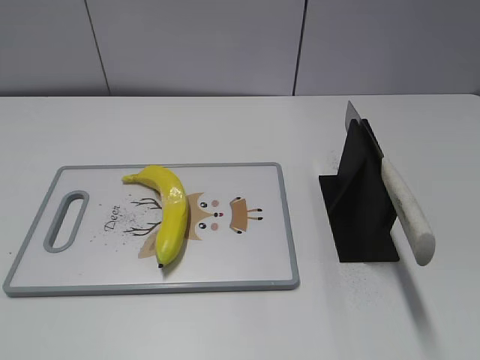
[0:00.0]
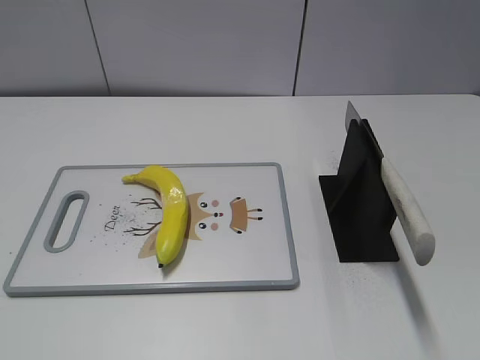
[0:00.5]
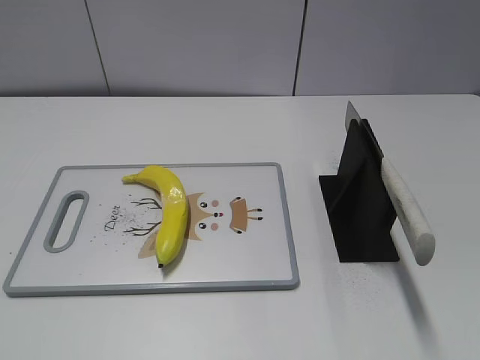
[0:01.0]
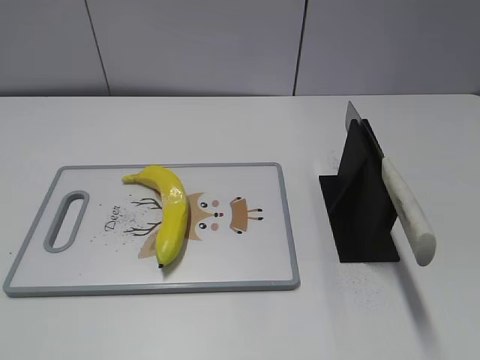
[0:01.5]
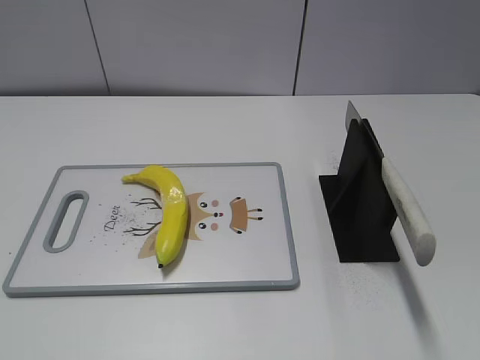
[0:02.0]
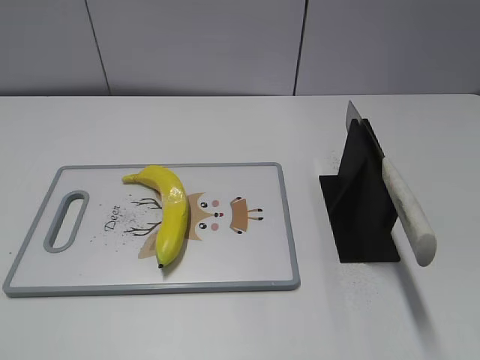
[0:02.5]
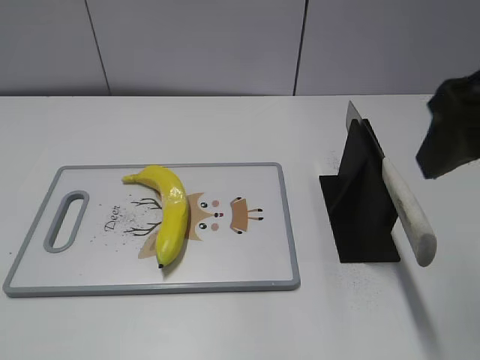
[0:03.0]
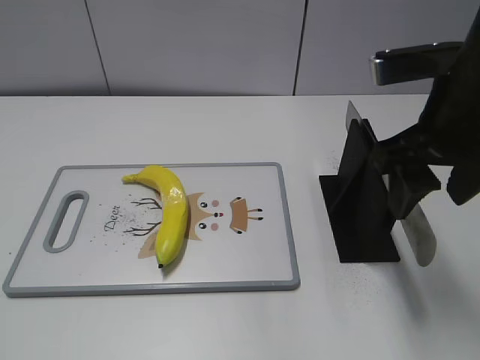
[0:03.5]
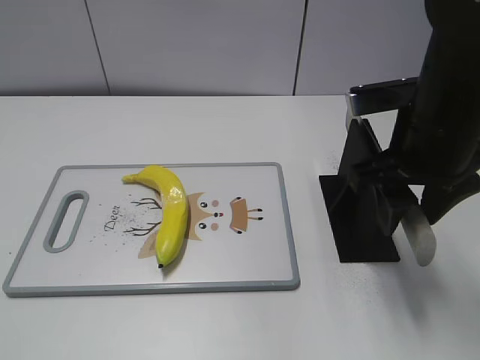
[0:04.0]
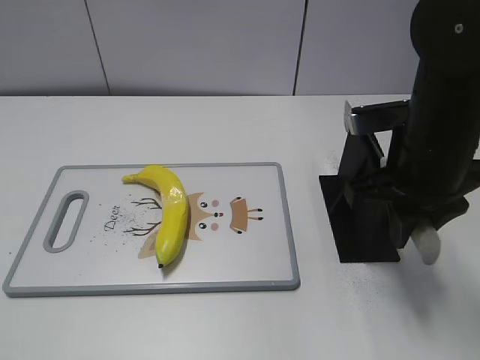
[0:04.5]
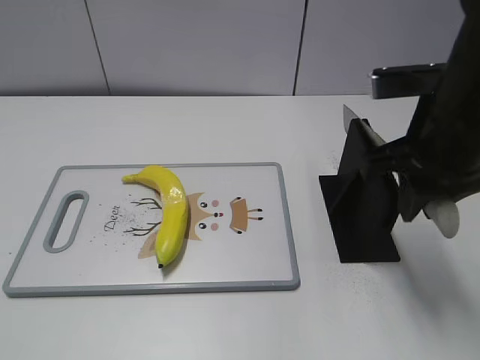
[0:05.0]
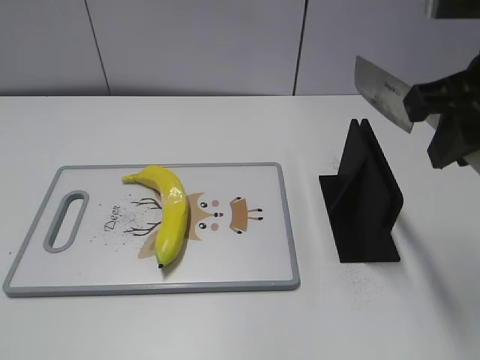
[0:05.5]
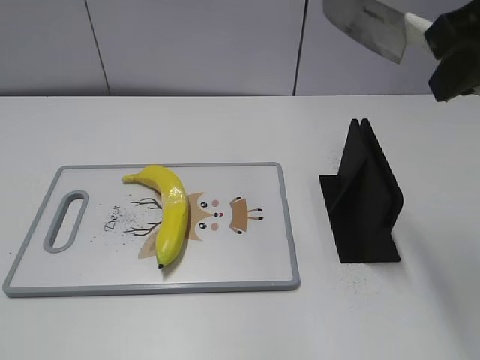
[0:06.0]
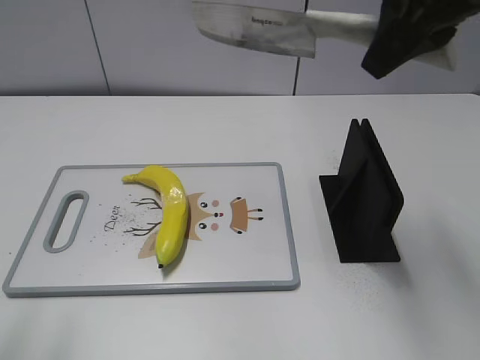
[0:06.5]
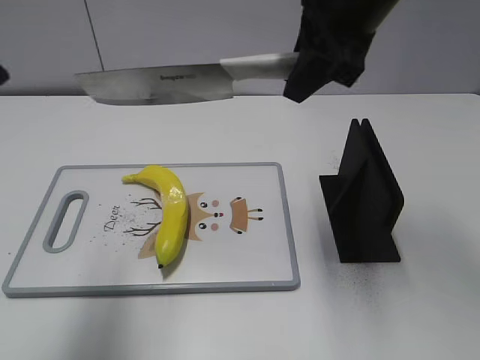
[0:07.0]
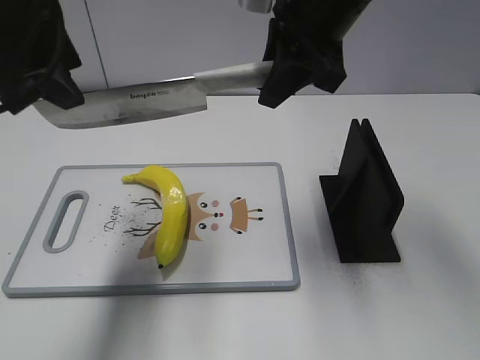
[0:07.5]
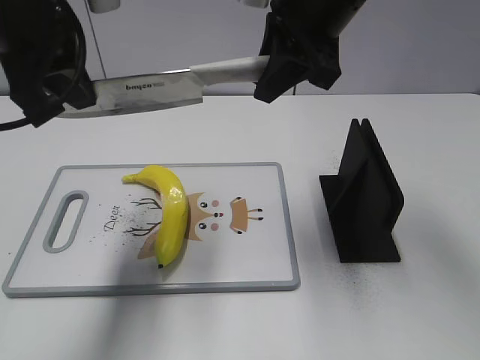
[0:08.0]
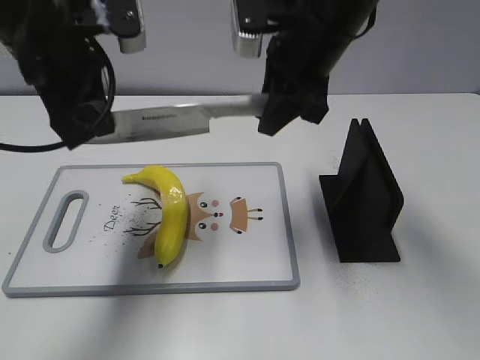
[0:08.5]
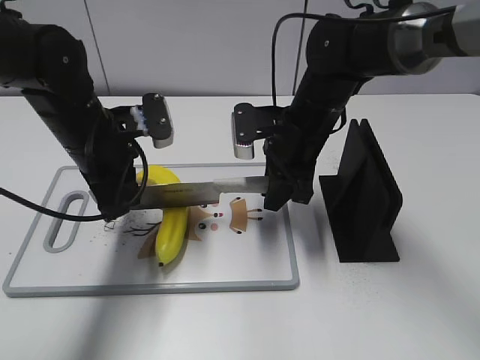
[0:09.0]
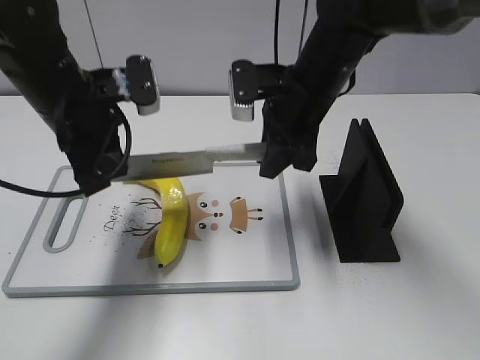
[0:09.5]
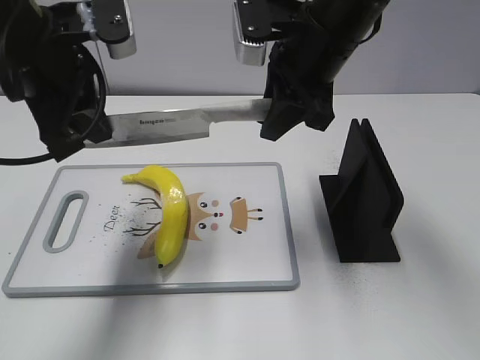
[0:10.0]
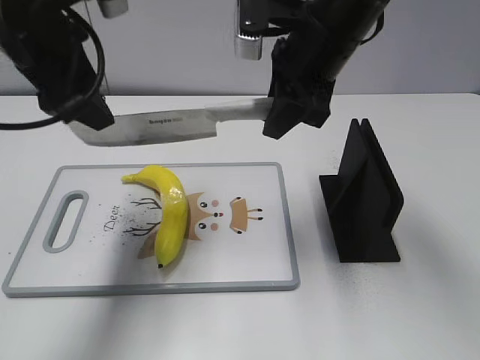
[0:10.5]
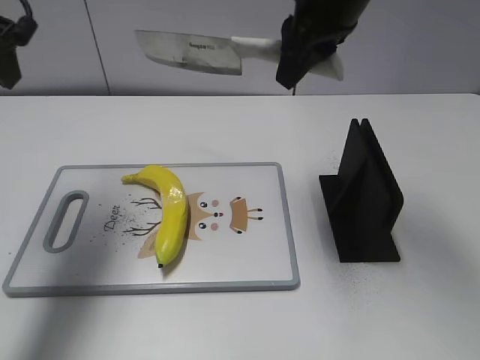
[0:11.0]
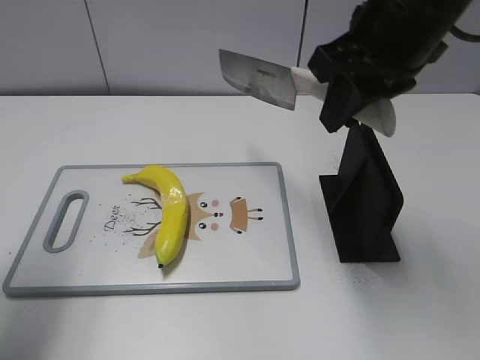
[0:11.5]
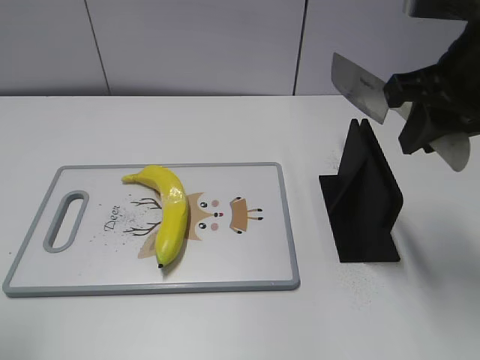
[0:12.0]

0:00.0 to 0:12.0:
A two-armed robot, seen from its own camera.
Task of the whole recording: cut plastic banana.
Step, 0:00.0 to 0:05.0: Grab the knife handle with your right hand.
Step, 0:06.0 to 0:10.0: Hold the blade with your left hand.
Step, 0:10.5 to 0:11.0: Cut the banana with your right hand.
0:02.0 to 0:04.0: The right gripper is displaced forward, to the left and downward by some 25 cm.
0:04.0 to 0:06.0: The right gripper moves upward, about 15 cm, and closes its fingers.
0:06.0 to 0:08.0: The left gripper moves forward and to the right, approximately 35 cm, and closes its fingers, while the right gripper moves forward, to the left and downward, approximately 15 cm.
0:08.0 to 0:10.0: The left gripper goes downward and returns, some 15 cm each way. The right gripper travels downward and back again, about 20 cm each way.
0:10.0 to 0:12.0: The left gripper is displaced backward and to the left by roughly 25 cm, and opens its fingers. Meanwhile the right gripper is displaced to the right and backward by about 15 cm.

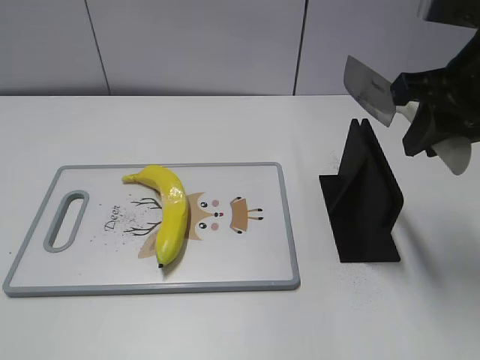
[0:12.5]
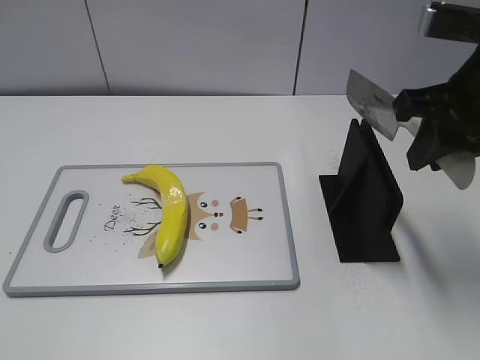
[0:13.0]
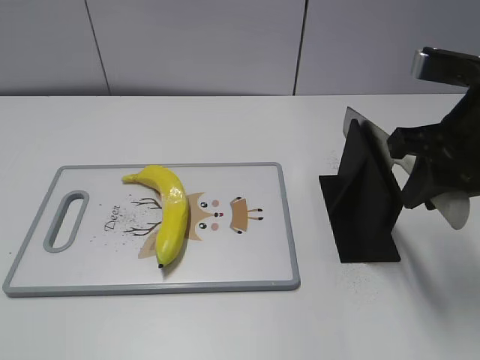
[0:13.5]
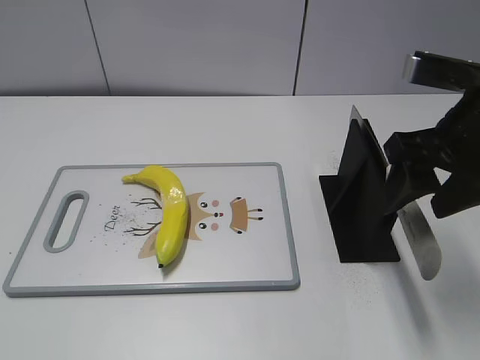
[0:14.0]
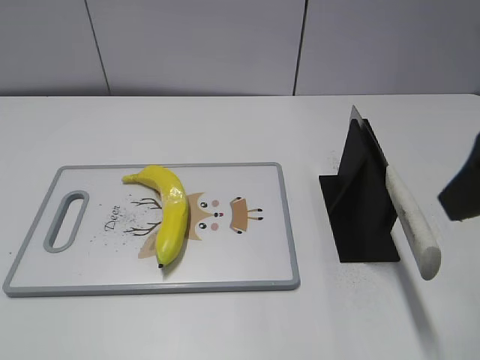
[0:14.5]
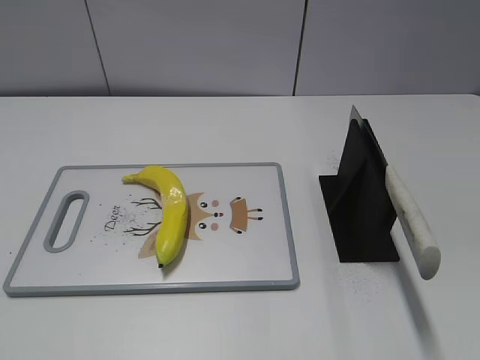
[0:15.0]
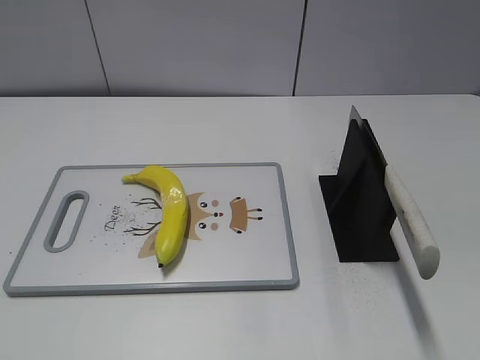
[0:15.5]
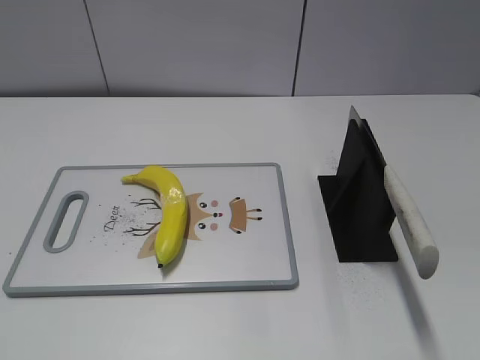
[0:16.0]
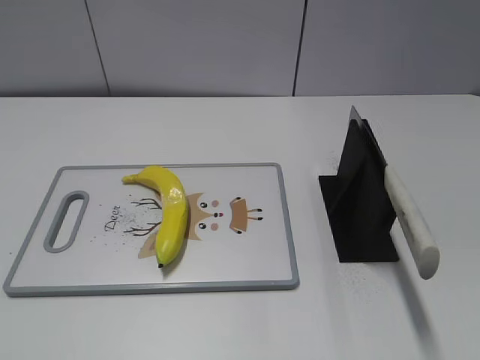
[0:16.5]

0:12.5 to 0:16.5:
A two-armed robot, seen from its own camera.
Task of the whole recording: cut plastic banana.
Step, 0:13.0 to 0:16.5: Place the knife on the storage rack with your right hand.
0:12.5 to 0:14.5: The right gripper travels backward by approximately 10 cm, and opens up.
0:14.5 to 0:16.5: The right gripper is displaced backward by roughly 20 cm.

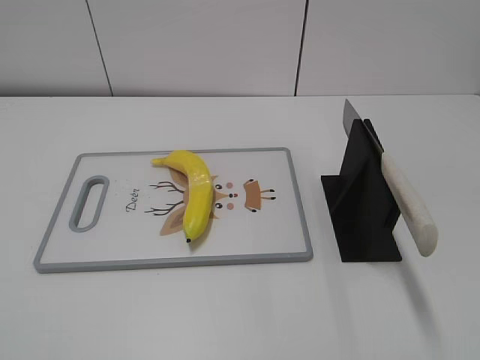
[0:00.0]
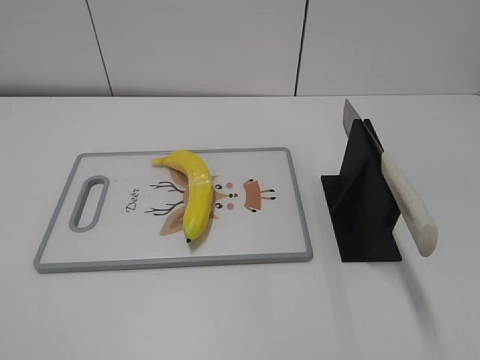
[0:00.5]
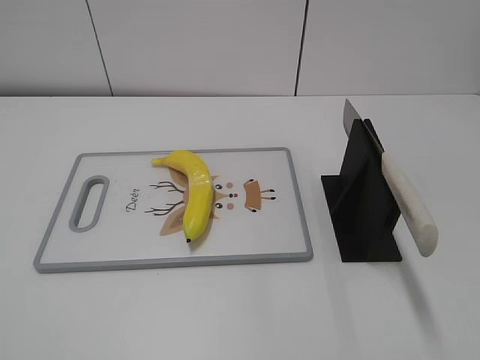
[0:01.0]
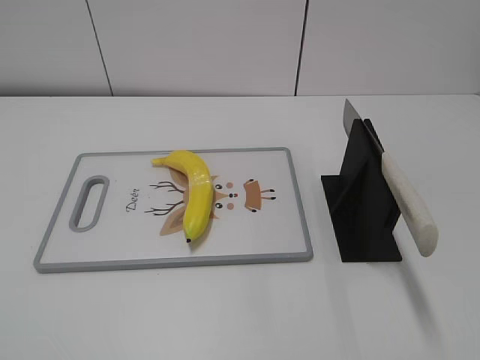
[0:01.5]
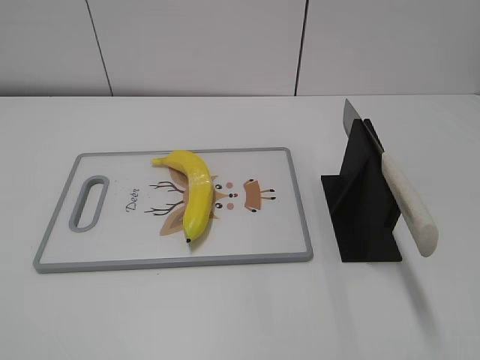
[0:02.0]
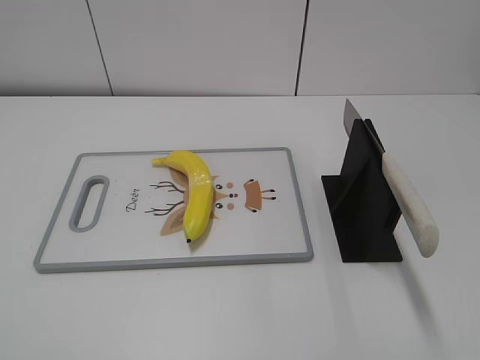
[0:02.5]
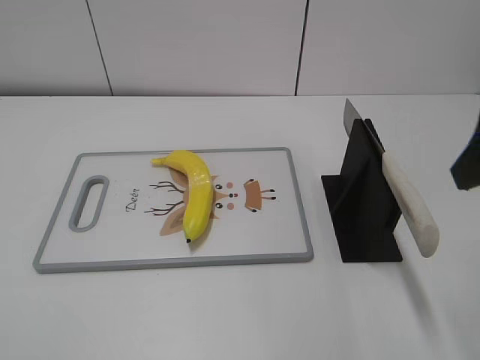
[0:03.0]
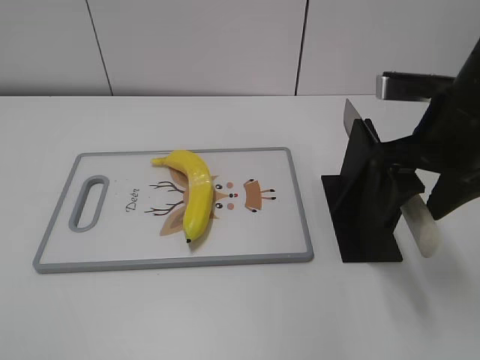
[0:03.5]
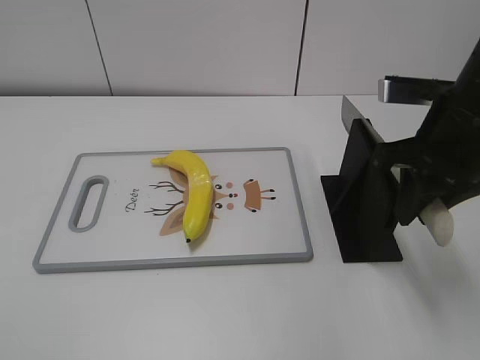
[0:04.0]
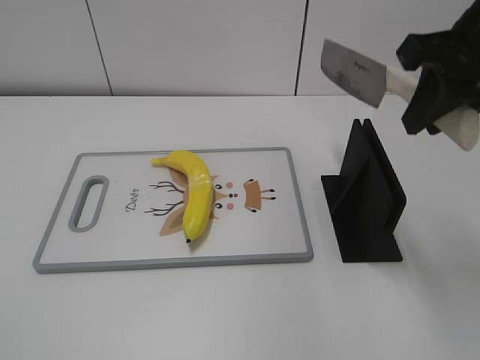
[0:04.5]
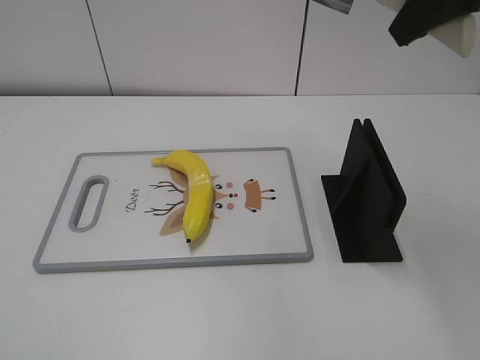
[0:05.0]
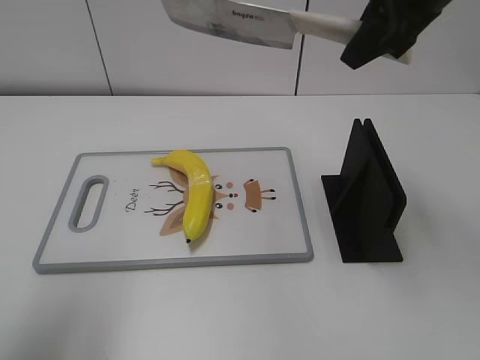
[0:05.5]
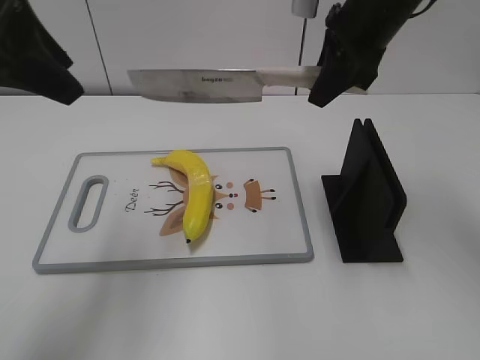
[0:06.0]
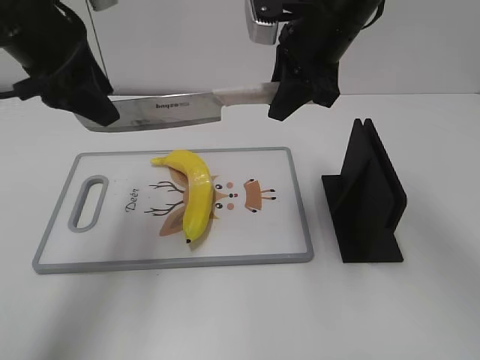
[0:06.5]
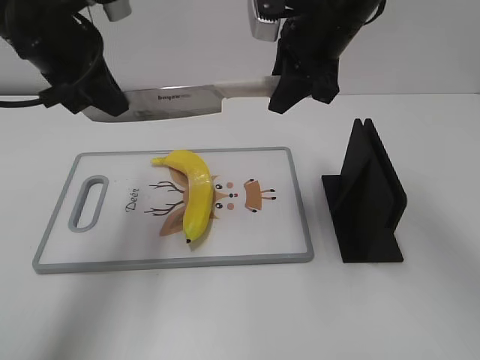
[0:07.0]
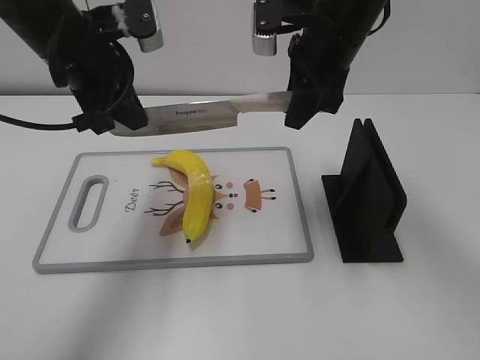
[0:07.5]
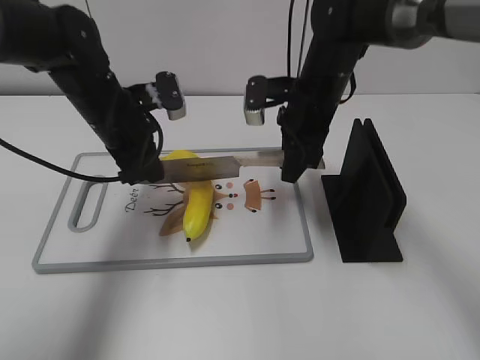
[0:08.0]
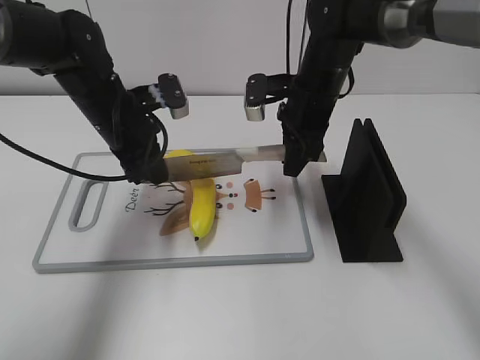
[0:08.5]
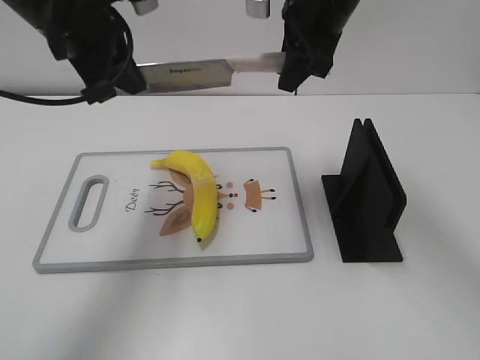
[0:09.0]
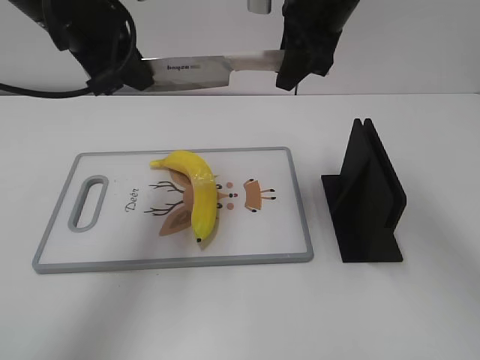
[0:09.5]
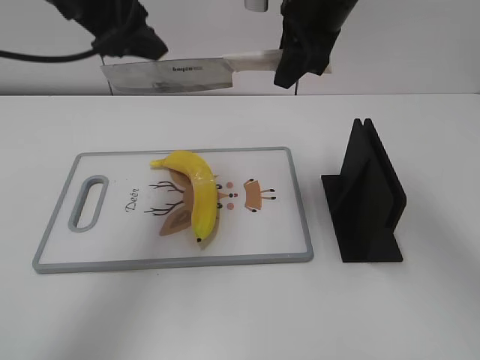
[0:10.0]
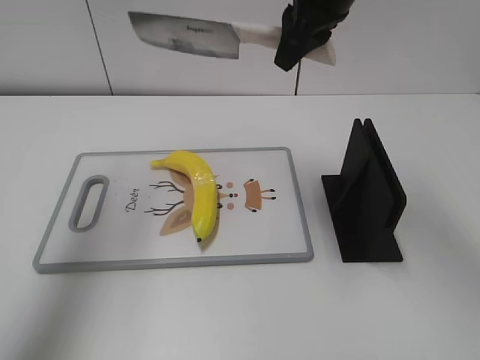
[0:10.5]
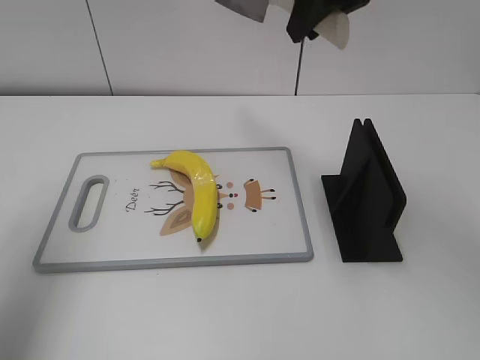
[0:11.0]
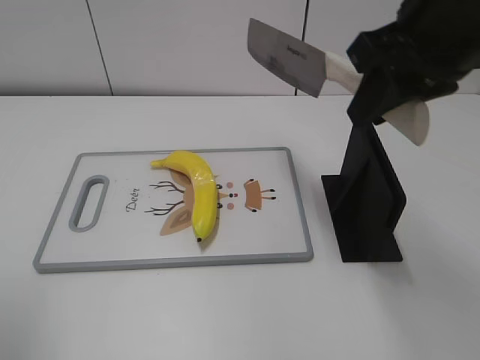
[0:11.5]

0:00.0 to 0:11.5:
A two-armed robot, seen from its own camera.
Task of the whole recording: cut plastic banana.
Step, 0:00.0 to 0:04.5: Grab the knife handle with your right hand.
Step, 0:05.0 to 0:08.5: Lift the knife with your right hand.
Step, 0:09.0 to 0:10.0: Cut the banana with your right hand.
0:02.0 to 0:04.0: The right gripper goes approximately 25 cm forward, and closes its fingers.
0:04.0 to 0:06.0: The left gripper shifts approximately 30 cm forward; the right gripper goes some 15 cm forward and to the left, and goes upward and returns, about 15 cm each way.
0:06.0 to 0:07.5: The left gripper travels downward, forward and to the right by approximately 10 cm, and closes up.
0:07.5 to 0:09.5: The right gripper goes downward and returns, some 10 cm each way. Meanwhile the left gripper goes downward and returns, approximately 10 cm each way, and opens up.
0:09.5 to 0:11.5: The left gripper goes roughly 25 cm backward and to the left, and opens; the right gripper heads backward and to the right, covering approximately 15 cm.
